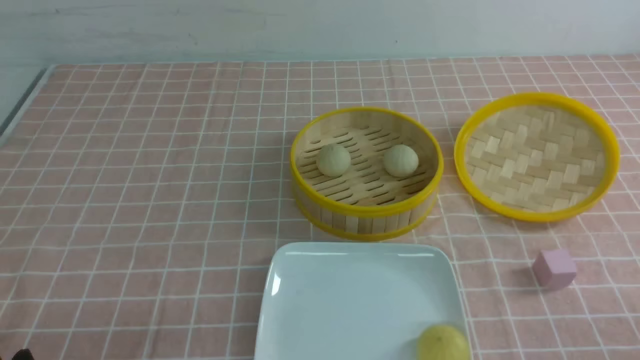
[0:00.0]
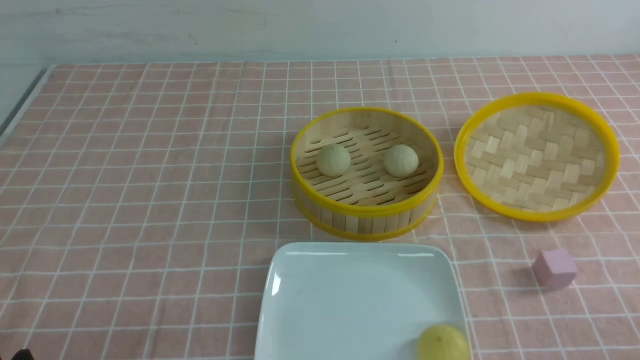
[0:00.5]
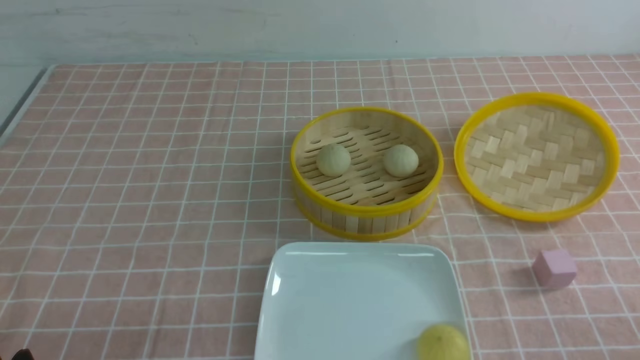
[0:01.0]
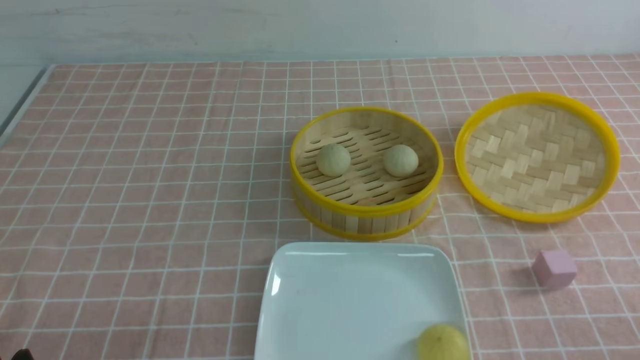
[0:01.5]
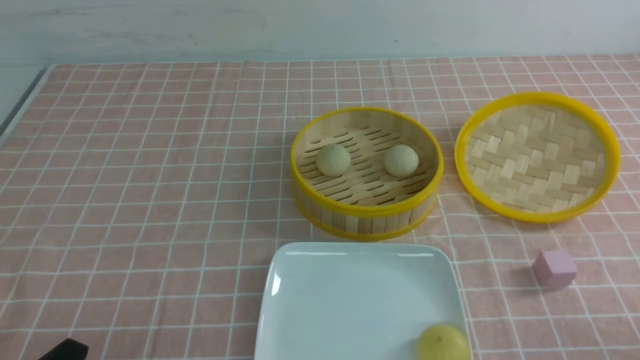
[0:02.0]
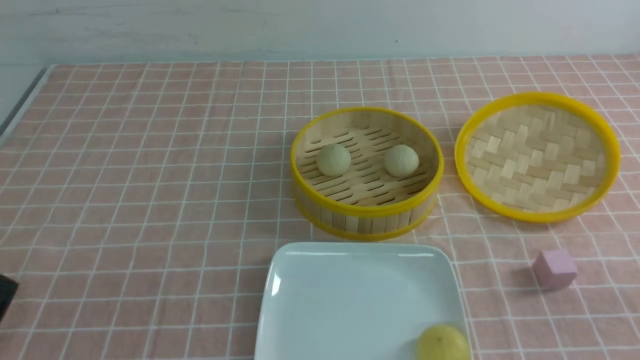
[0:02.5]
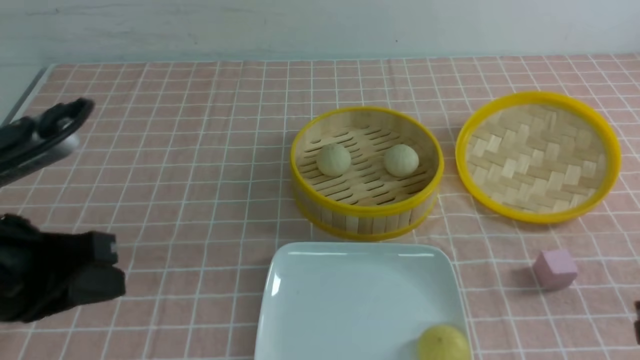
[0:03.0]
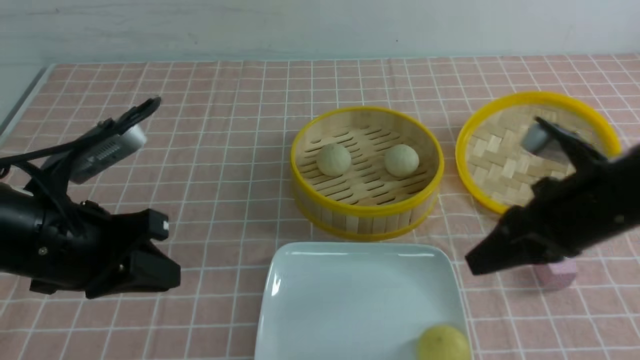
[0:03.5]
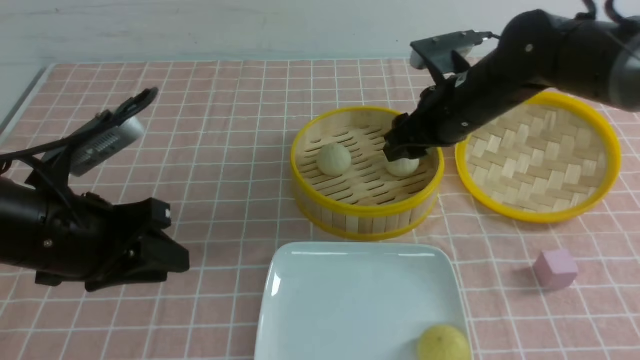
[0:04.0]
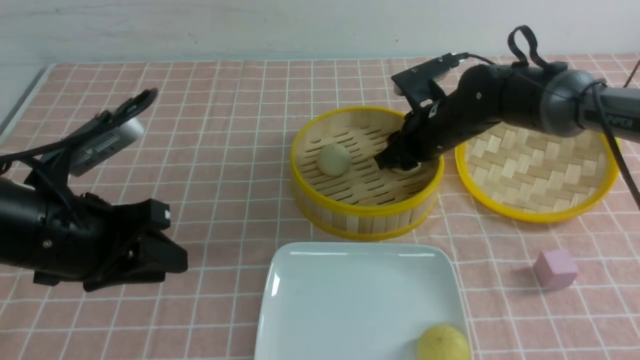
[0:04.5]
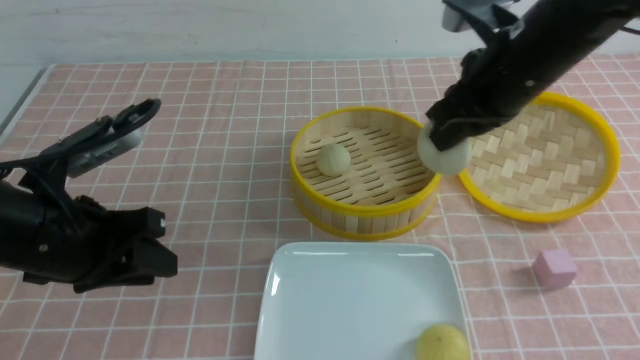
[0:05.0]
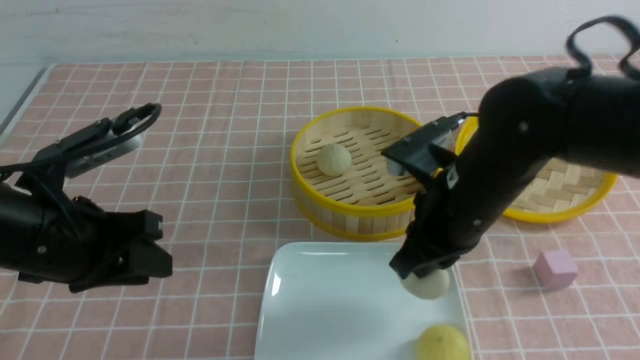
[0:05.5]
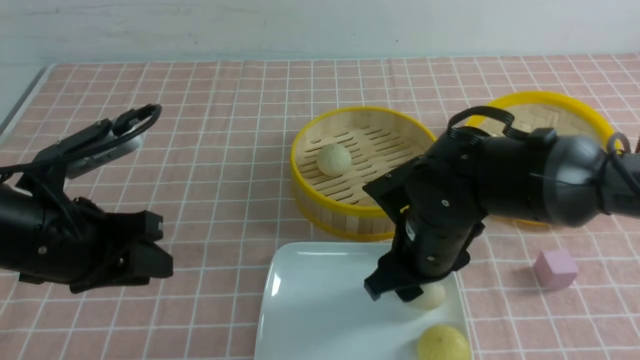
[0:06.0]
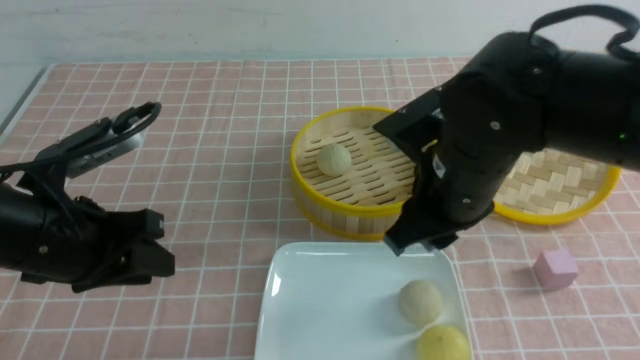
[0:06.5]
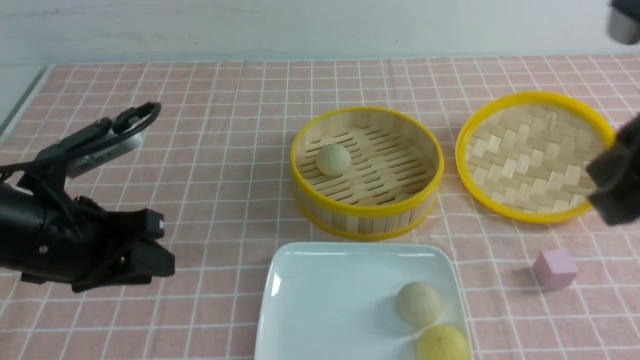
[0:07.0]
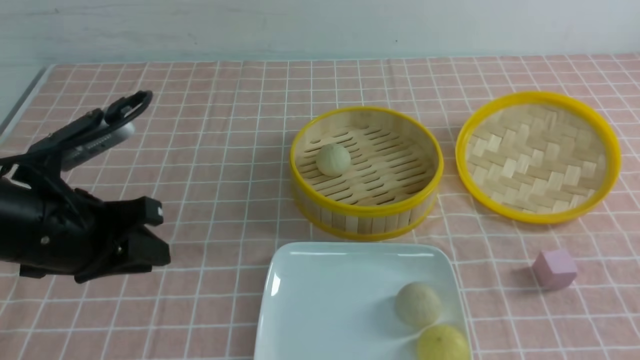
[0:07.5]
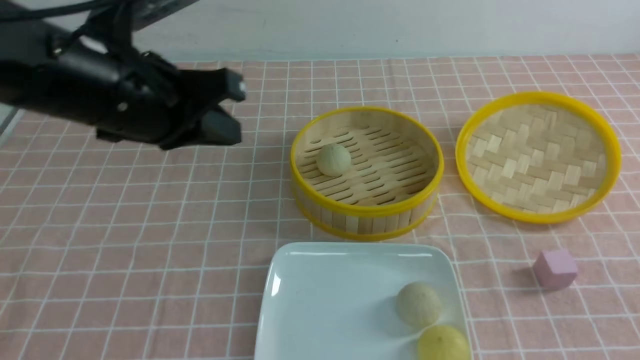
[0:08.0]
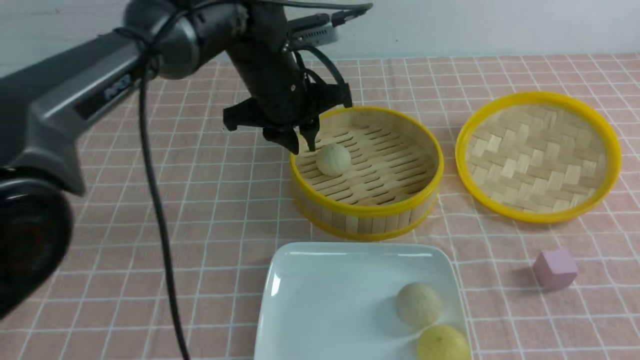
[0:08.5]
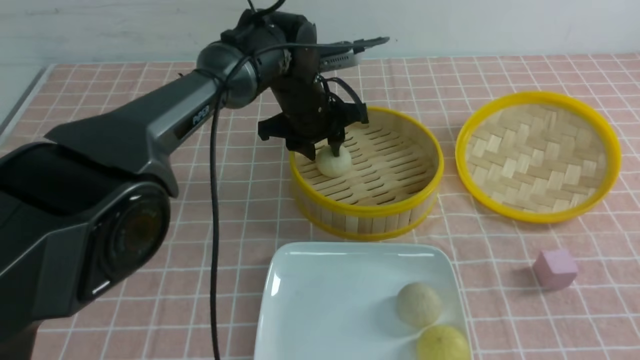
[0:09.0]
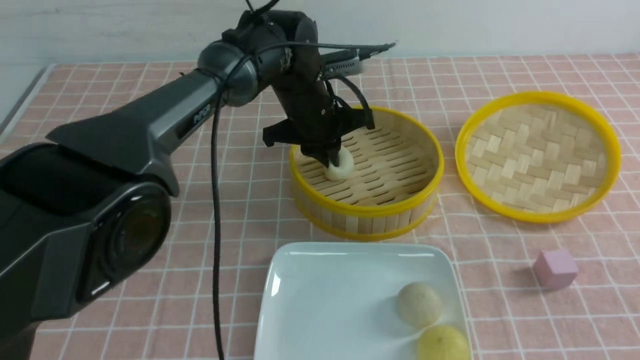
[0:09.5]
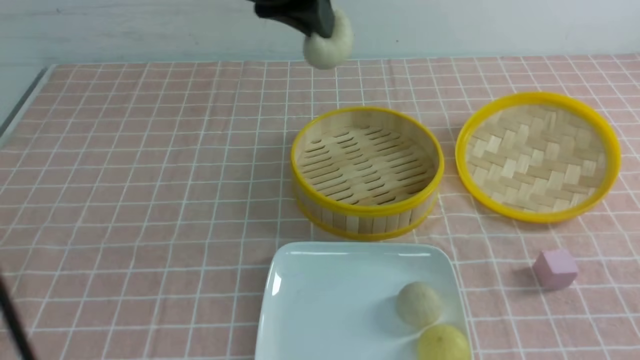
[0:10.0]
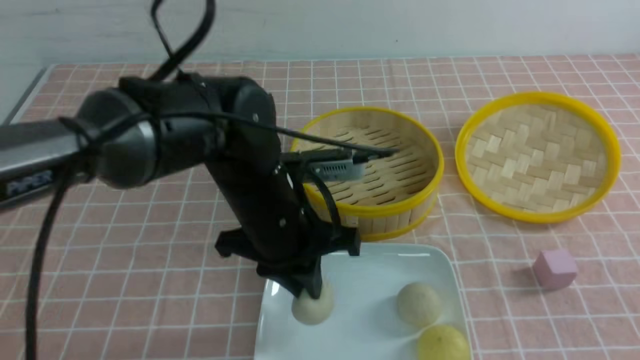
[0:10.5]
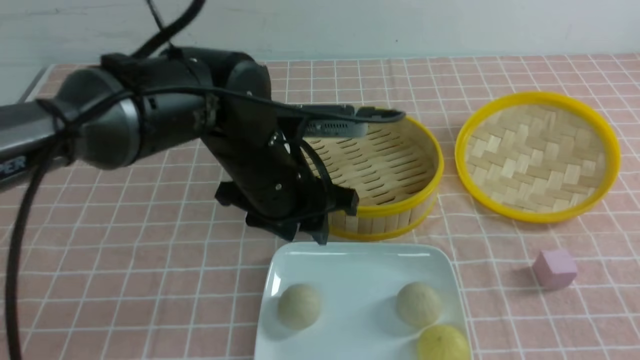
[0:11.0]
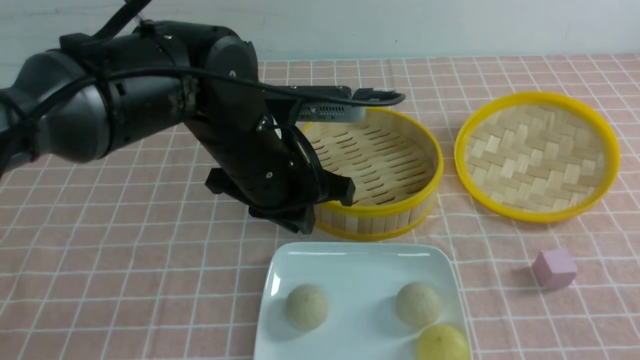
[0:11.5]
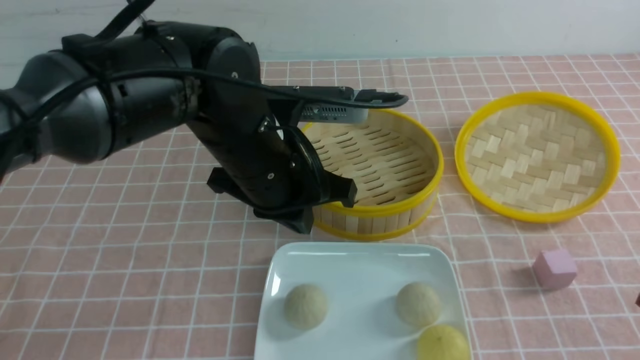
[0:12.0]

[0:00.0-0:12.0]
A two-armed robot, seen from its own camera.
Step, 0:00.0 to 0:04.5: use the right arm to grab the steamed stuffed bun that is closest to it.
Step, 0:05.0 to 0:06.0: use the right arm to put the steamed stuffed bun into the plate.
Step, 0:06.5 to 0:09.0: use the left arm to grab the steamed stuffed bun that is closest to it.
Step, 0:09.5 to 0:10.5: use the left arm to put the steamed stuffed bun into the plate.
0:02.0 to 0:04.0: The left gripper goes roughly 20 cm forward and upward, and closes and opens again, while the right gripper shifts roughly 40 cm forward and to the left, and opens.
0:04.0 to 0:06.0: The right gripper heads backward and to the left, covering approximately 15 cm, and closes, then reopens.
0:06.0 to 0:08.0: The left gripper is displaced upward, to the right and forward by approximately 15 cm, and closes up. Meanwhile the right gripper moves backward, to the right and upward, roughly 30 cm, and closes its fingers.
0:08.0 to 0:10.0: The left gripper travels to the right and upward by about 10 cm, and opens and closes again.
0:10.0 to 0:12.0: The left gripper moves downward, some 15 cm, and opens, then closes again.

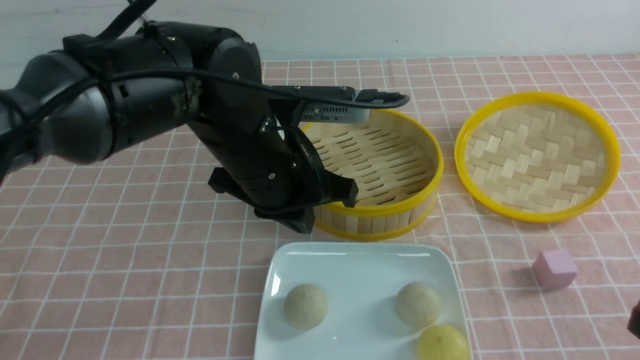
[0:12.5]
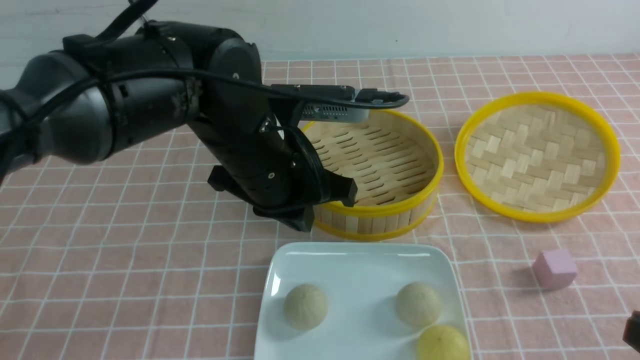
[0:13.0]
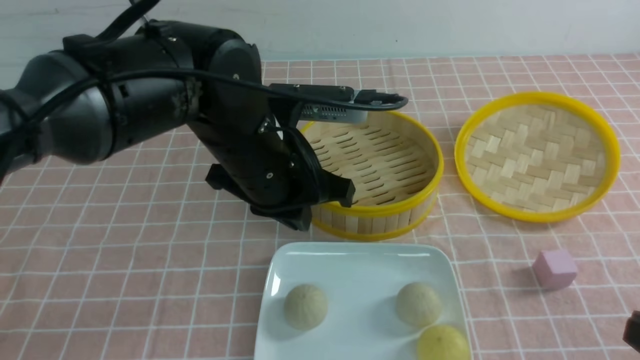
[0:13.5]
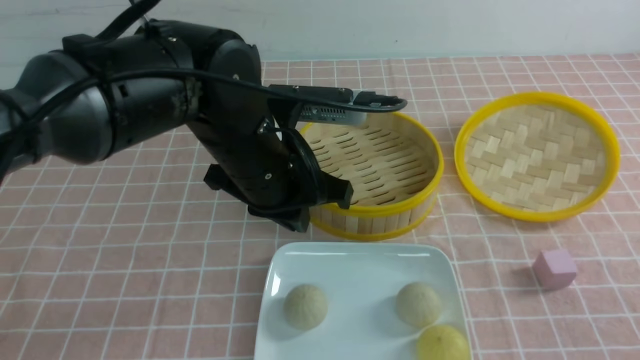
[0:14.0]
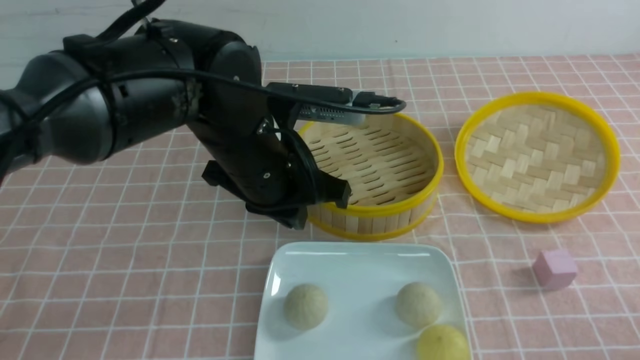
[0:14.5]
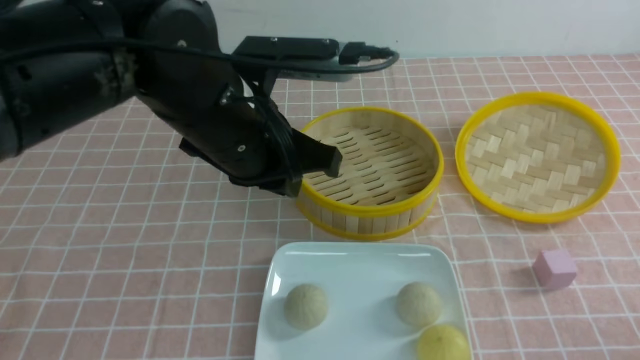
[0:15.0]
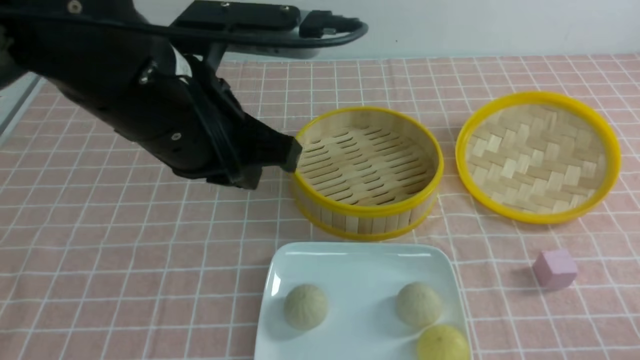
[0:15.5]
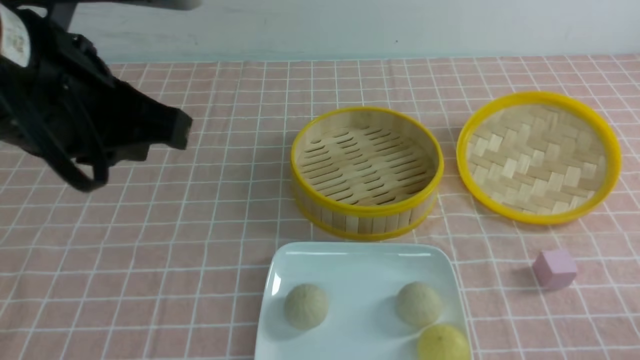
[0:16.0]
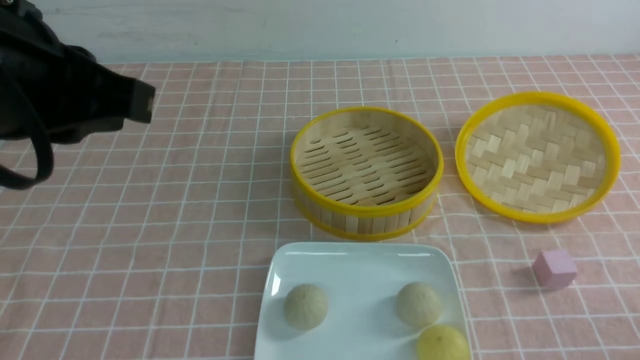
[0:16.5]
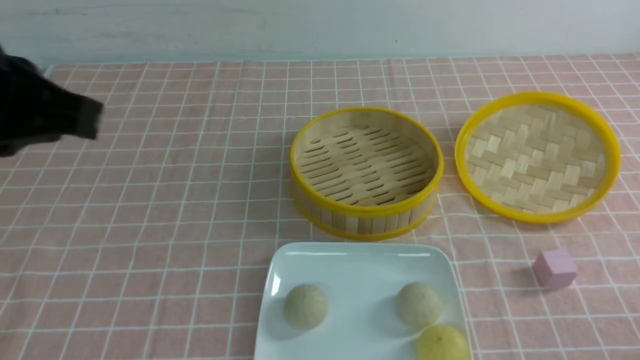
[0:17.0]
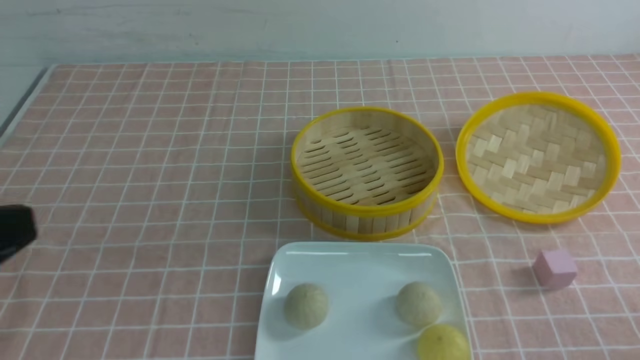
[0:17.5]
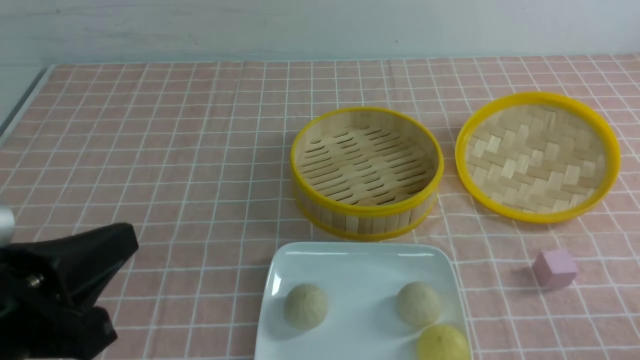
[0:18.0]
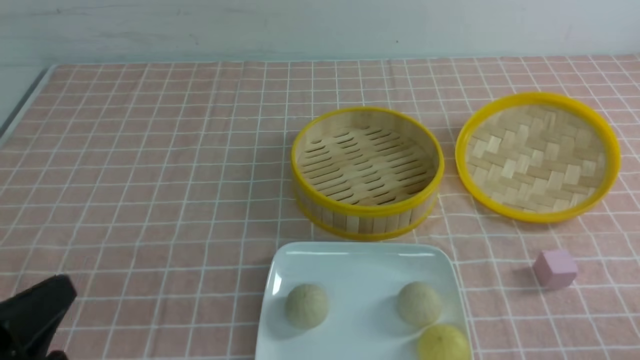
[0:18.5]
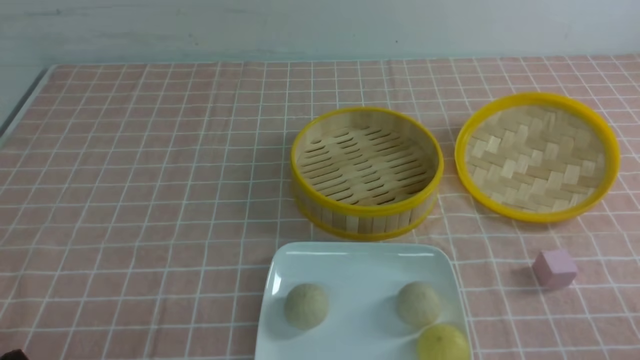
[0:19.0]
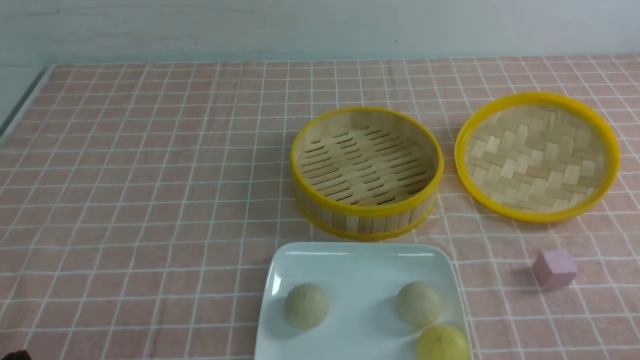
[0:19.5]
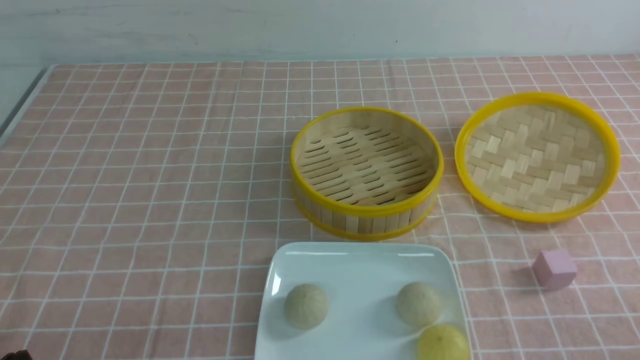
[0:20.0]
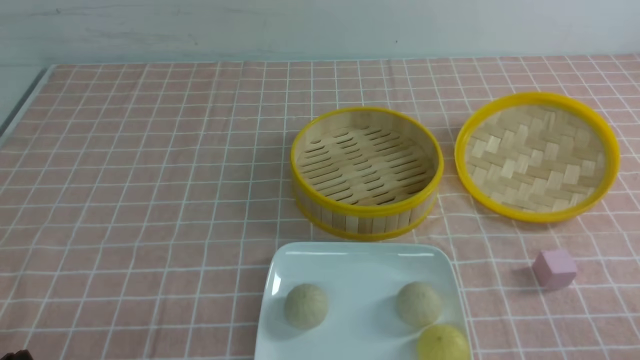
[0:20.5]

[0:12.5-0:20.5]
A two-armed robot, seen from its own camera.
0:12.5 to 0:14.5: The right gripper heads downward, covering approximately 10 cm.
0:14.5 to 0:16.5: The left gripper moves upward, to the left and backward, roughly 20 cm.
0:16.5 to 0:18.5: The left gripper moves downward and backward, approximately 20 cm.
0:18.5 to 0:20.5: The left gripper shifts approximately 5 cm downward.
